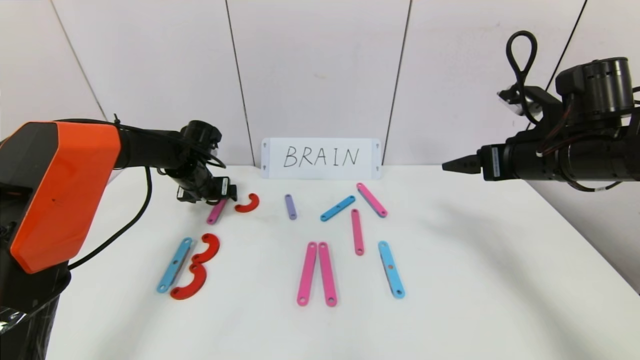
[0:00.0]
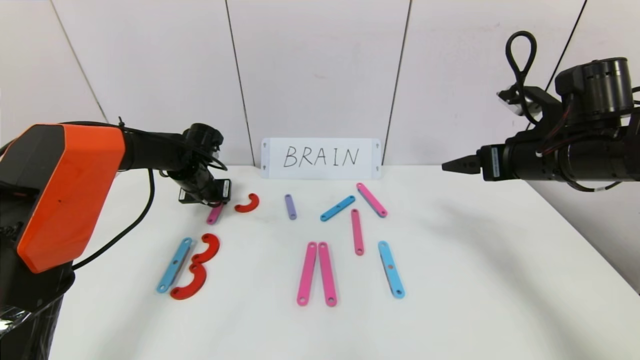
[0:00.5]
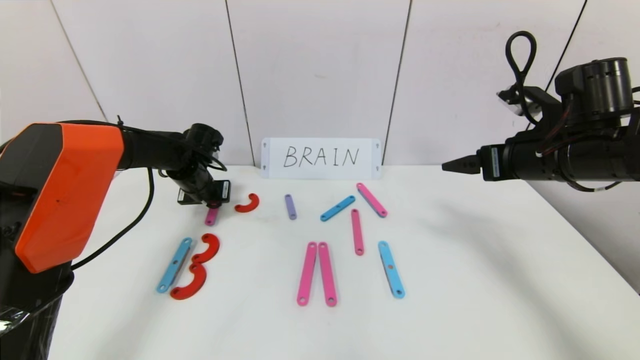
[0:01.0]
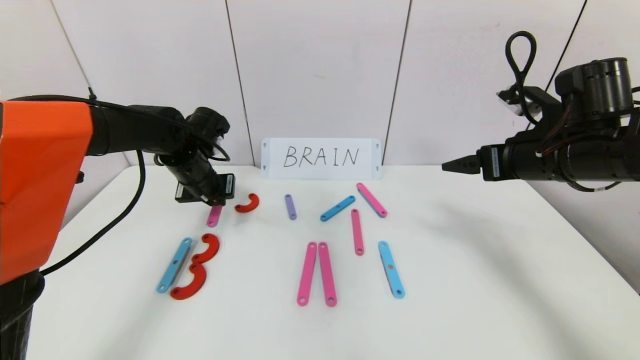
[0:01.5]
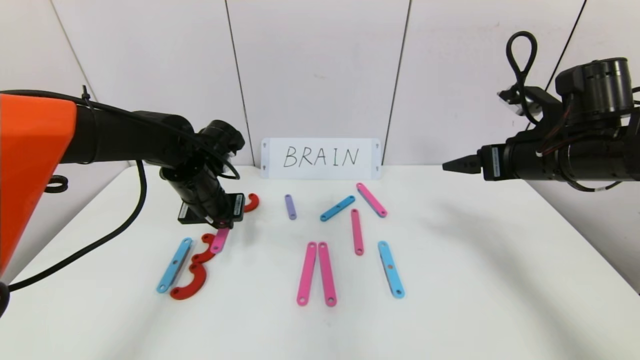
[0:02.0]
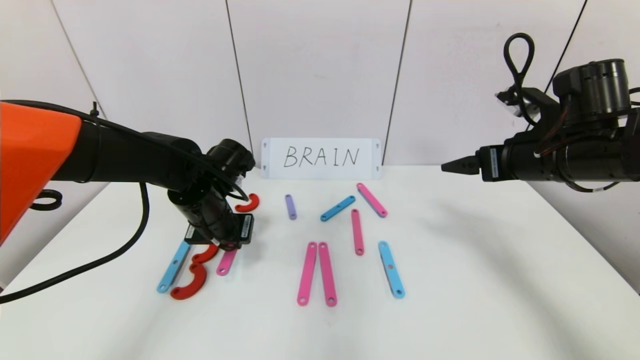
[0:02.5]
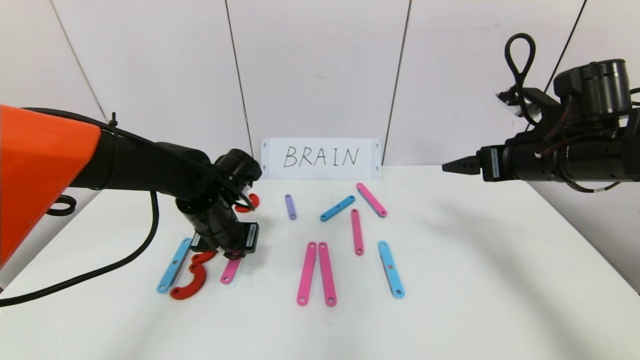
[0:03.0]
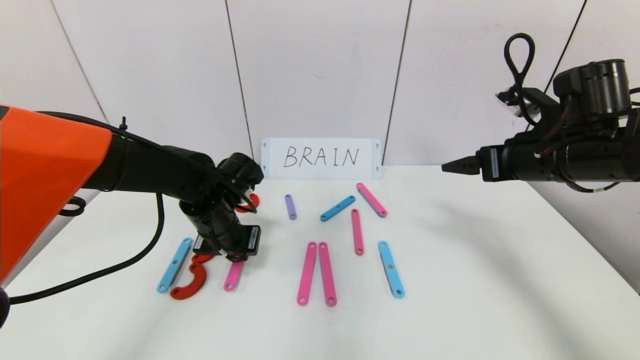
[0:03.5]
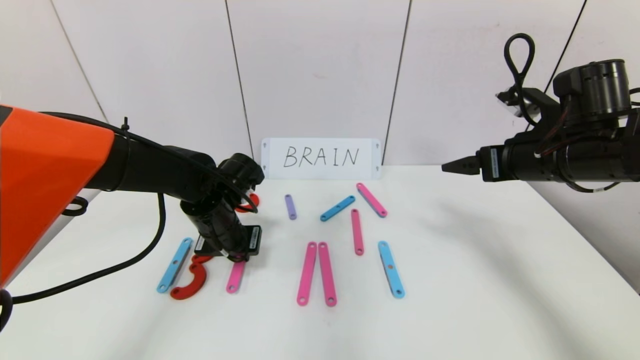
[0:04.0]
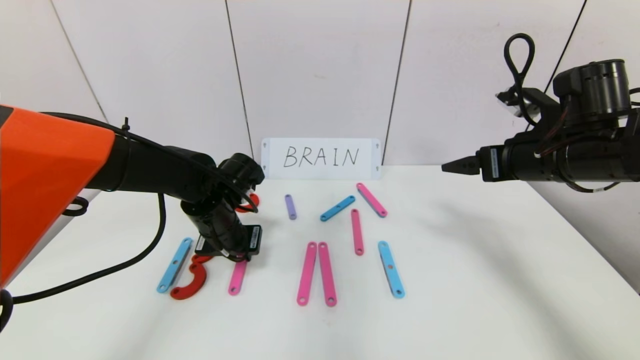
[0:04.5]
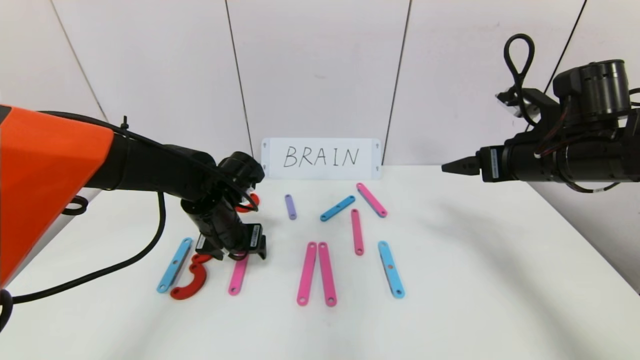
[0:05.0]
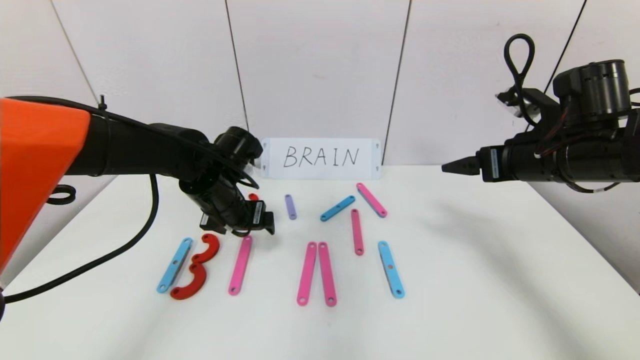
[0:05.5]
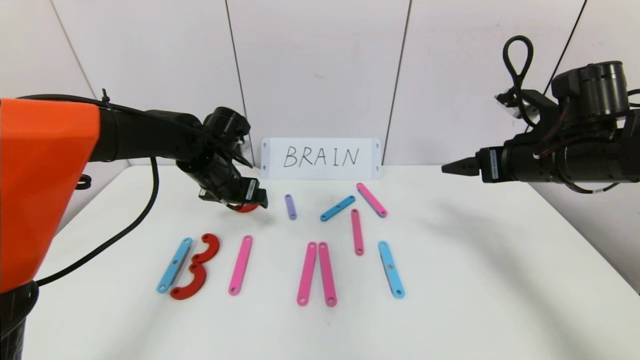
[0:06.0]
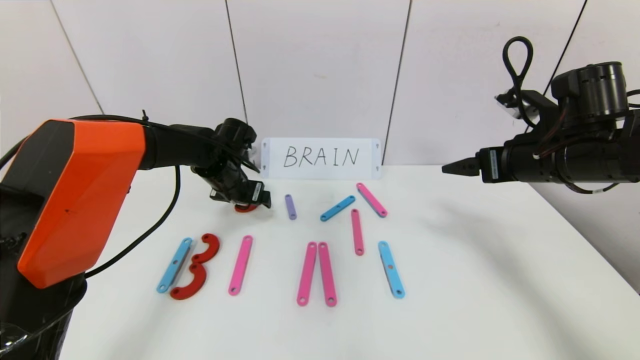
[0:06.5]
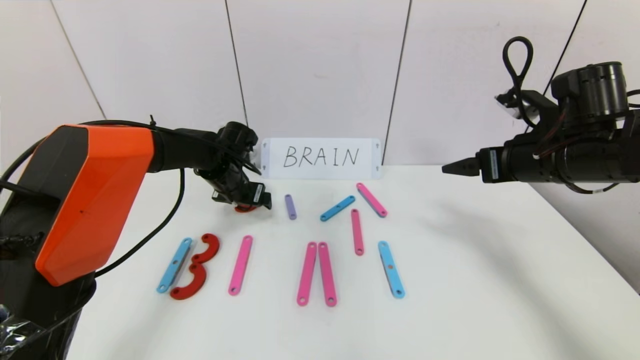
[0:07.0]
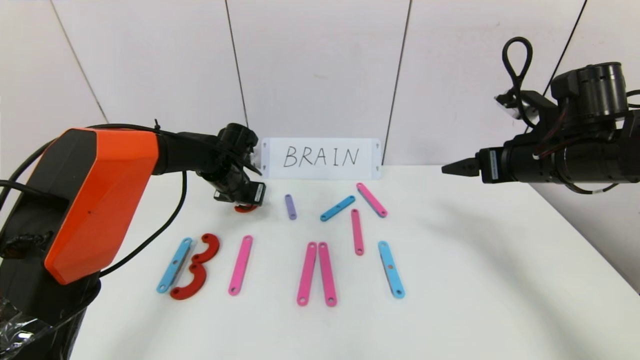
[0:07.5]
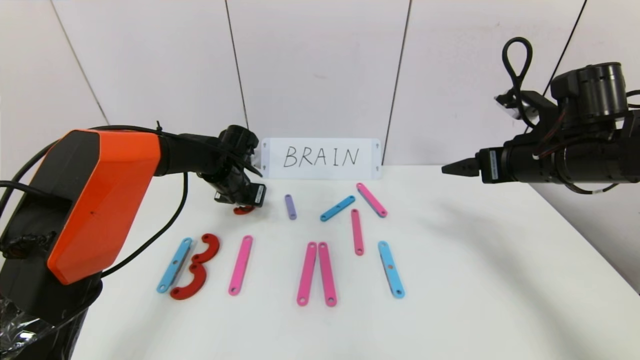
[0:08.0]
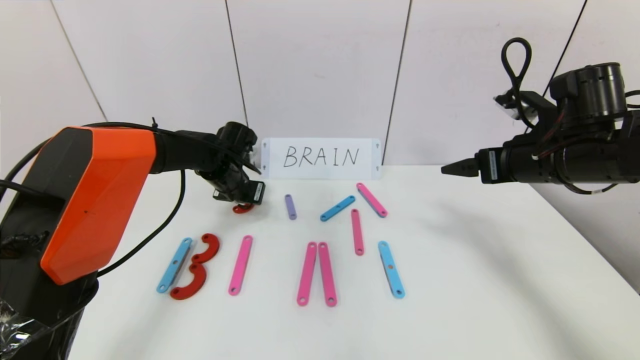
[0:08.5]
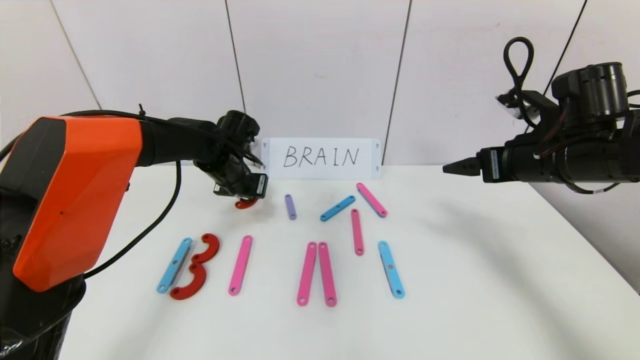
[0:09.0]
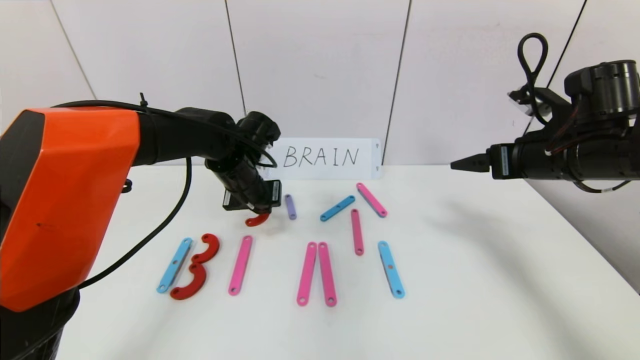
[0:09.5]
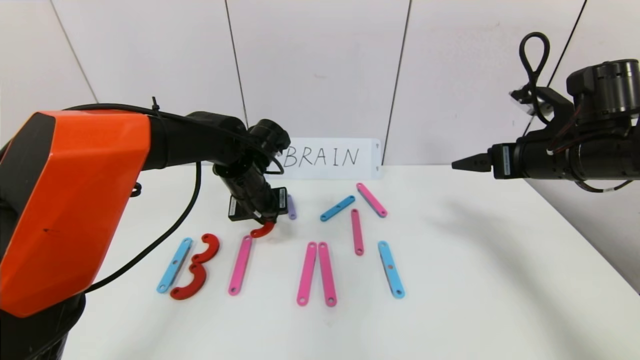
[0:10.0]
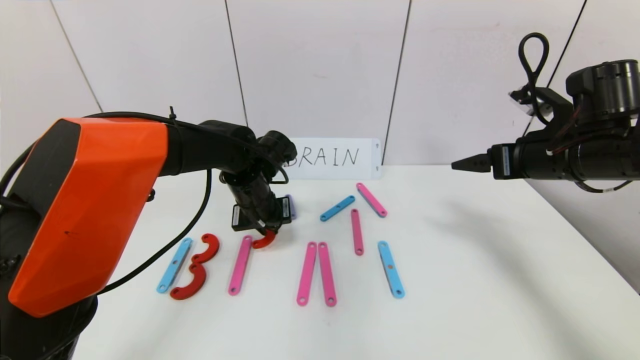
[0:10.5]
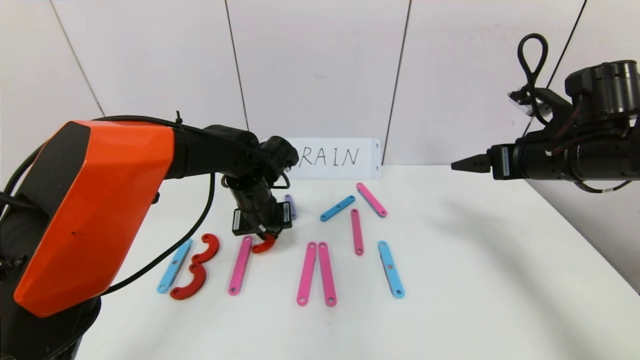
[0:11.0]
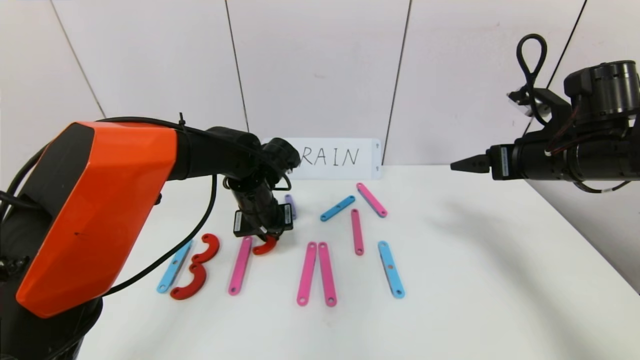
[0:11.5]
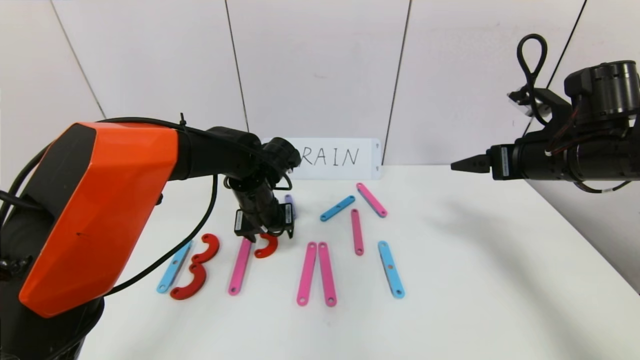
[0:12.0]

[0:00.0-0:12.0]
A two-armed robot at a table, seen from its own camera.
Task of the whole recording: rearrange the word baai as brain.
0:00.0 to 0:02.0: The left gripper travels backward and to the right by about 10 cm, and closes.
0:02.0 to 0:04.0: The left gripper changes place by some 5 cm.
0:04.0 to 0:06.0: The left gripper moves forward, about 5 cm, and opens up.
0:06.0 to 0:08.0: The left gripper shifts about 10 cm forward and downward, and closes its fingers.
0:08.0 to 0:10.0: The left gripper is displaced backward and to the right by about 10 cm.
0:10.0 to 0:12.0: The left gripper opens.

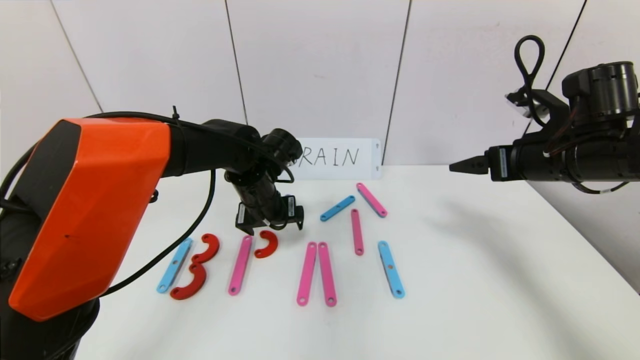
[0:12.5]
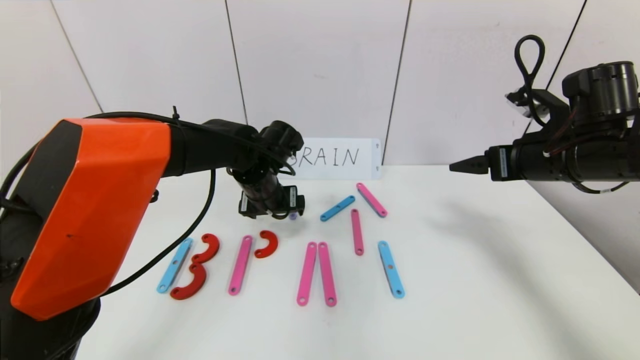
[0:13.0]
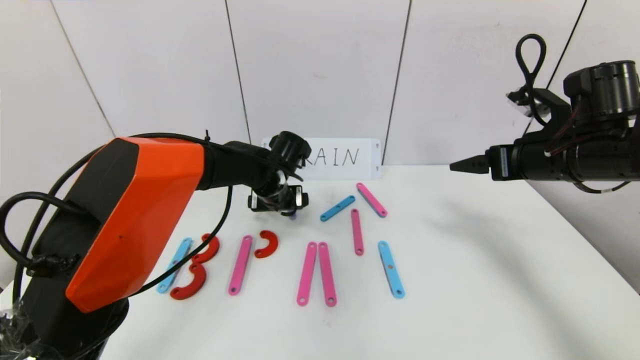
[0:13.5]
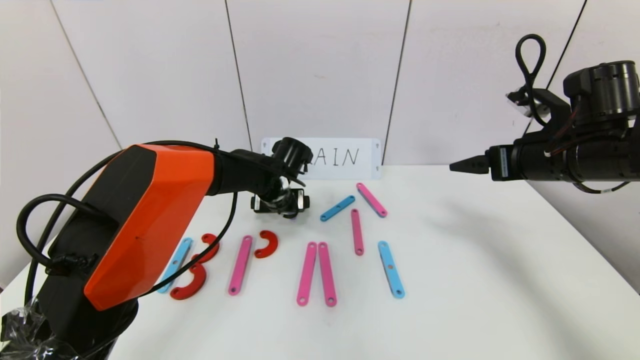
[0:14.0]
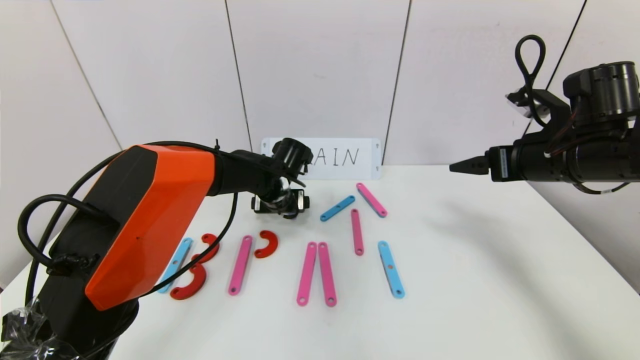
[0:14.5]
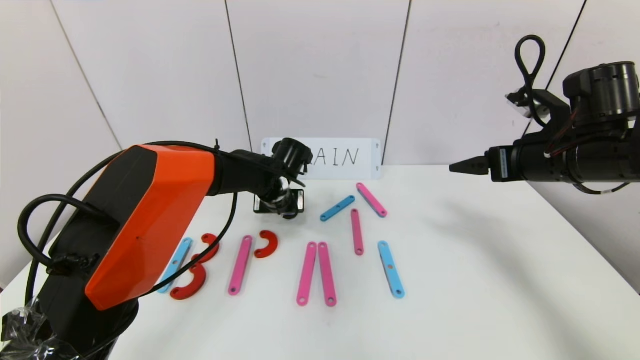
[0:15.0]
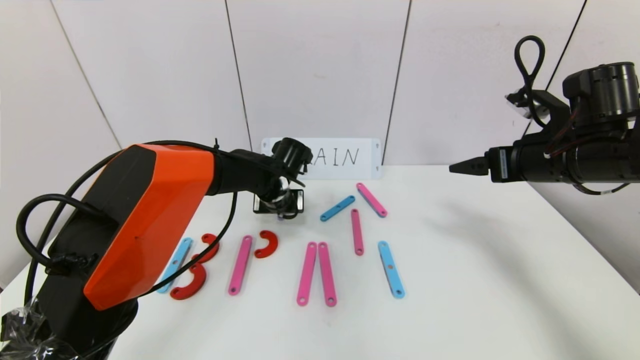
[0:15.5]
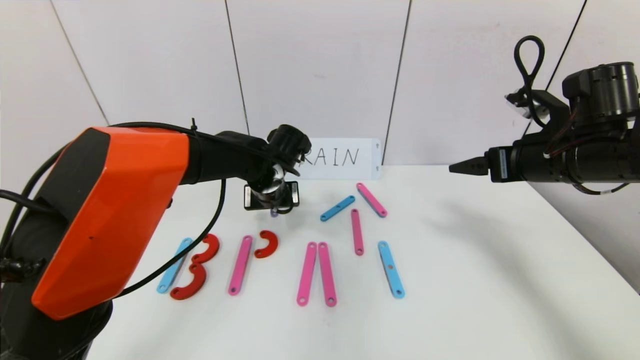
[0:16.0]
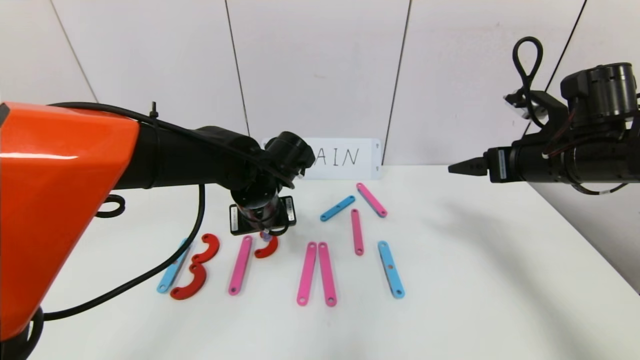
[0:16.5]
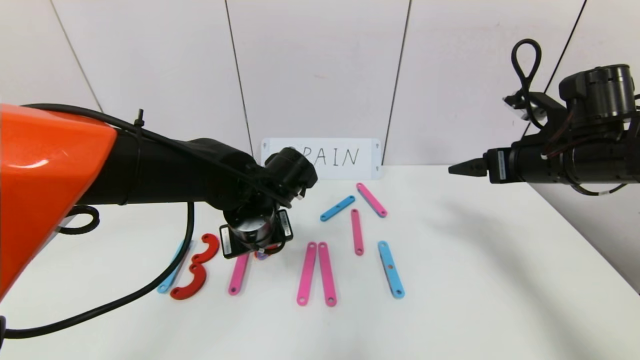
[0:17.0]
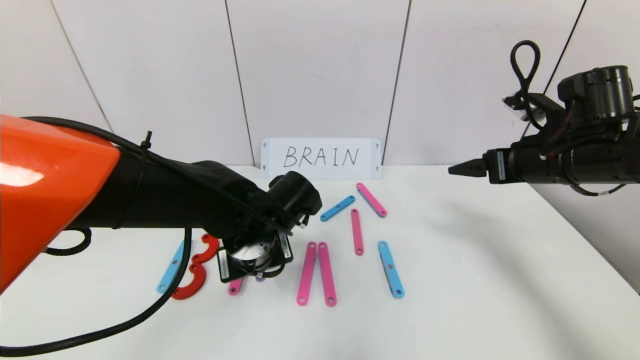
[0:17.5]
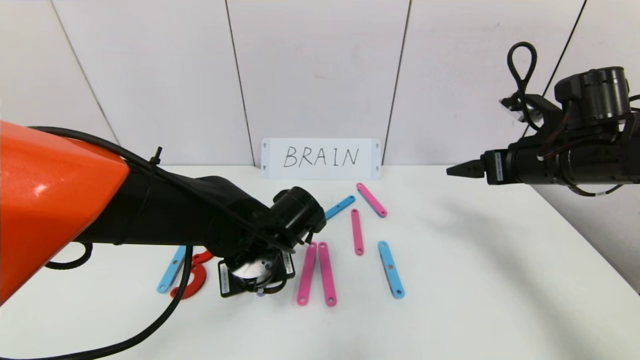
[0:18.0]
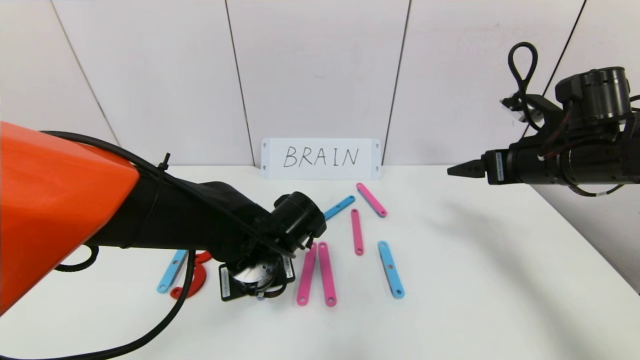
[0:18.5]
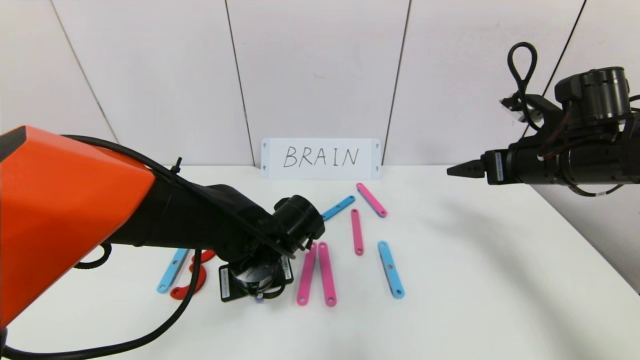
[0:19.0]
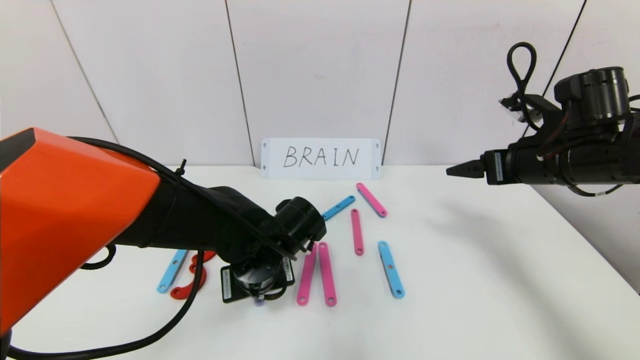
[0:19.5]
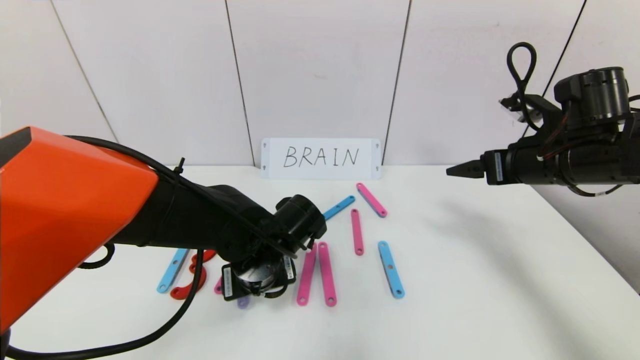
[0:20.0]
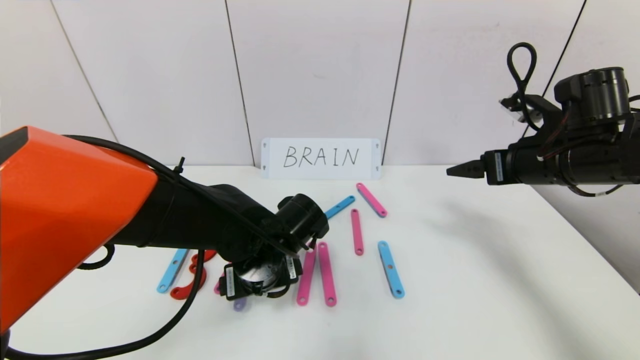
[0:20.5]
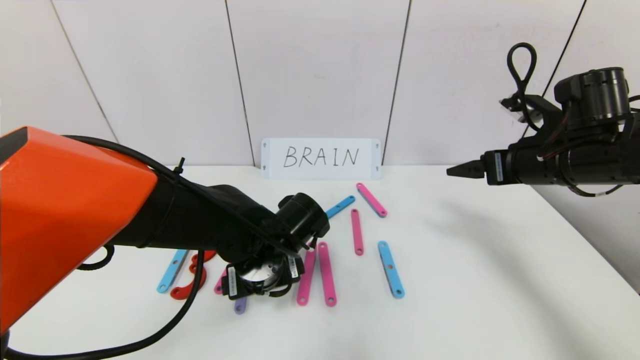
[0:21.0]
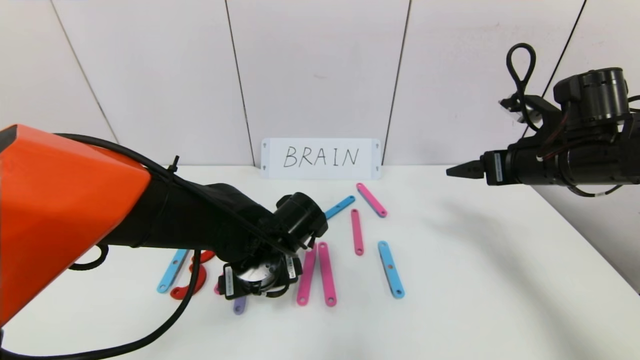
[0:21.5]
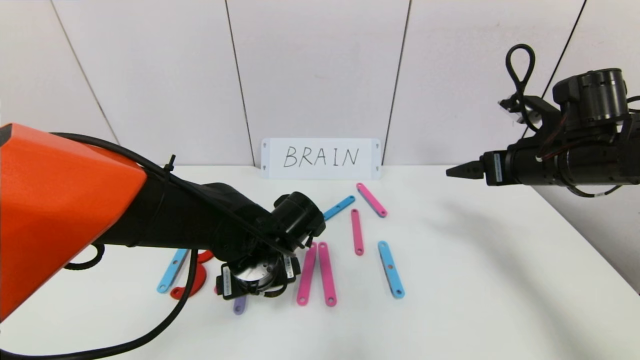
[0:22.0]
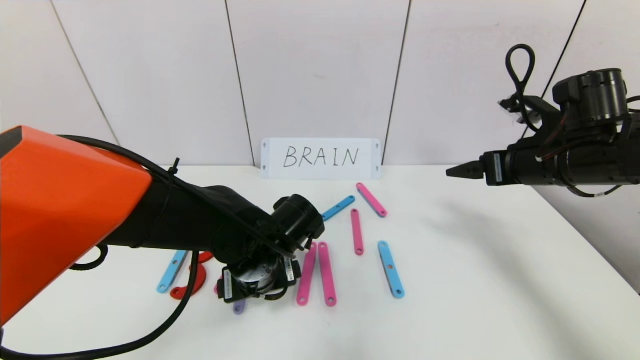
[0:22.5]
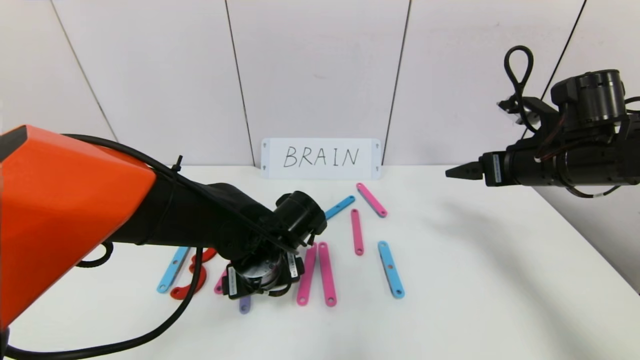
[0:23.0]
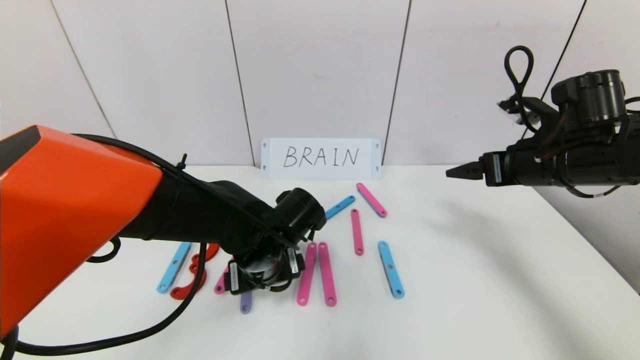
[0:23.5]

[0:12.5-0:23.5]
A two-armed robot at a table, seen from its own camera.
Task of the whole recording: rearrange the word baai as brain.
0:12.5 to 0:14.5: The left gripper shifts some 5 cm forward.
0:14.5 to 0:16.0: The left gripper closes.
0:16.0 to 0:18.0: The left gripper is displaced backward by some 15 cm.
0:18.0 to 0:20.0: The left gripper opens its fingers.
0:20.0 to 0:23.5: Both grippers stay about where they are.
